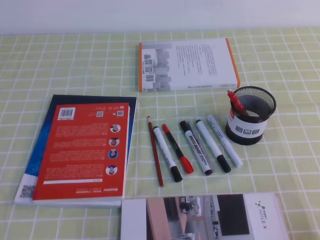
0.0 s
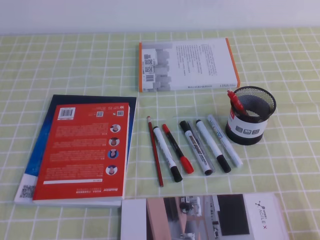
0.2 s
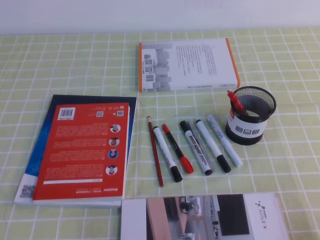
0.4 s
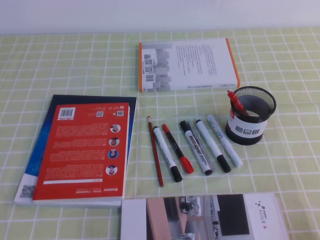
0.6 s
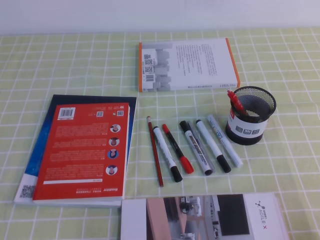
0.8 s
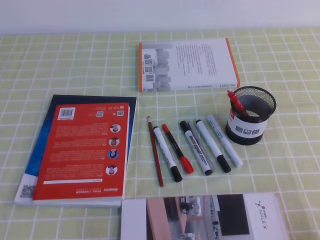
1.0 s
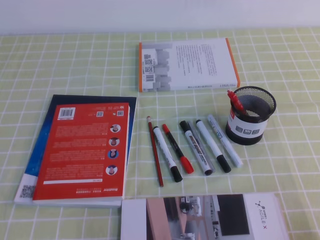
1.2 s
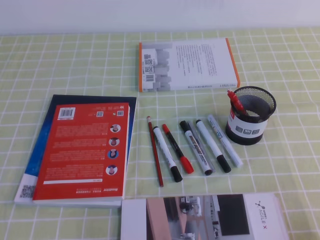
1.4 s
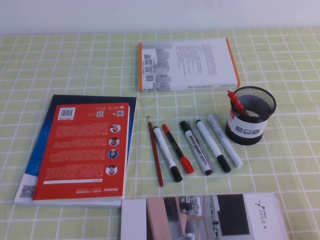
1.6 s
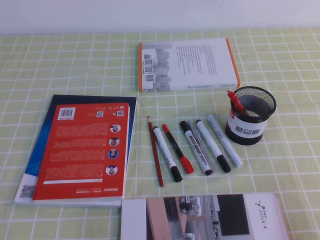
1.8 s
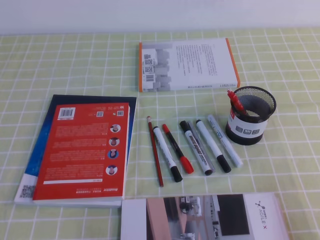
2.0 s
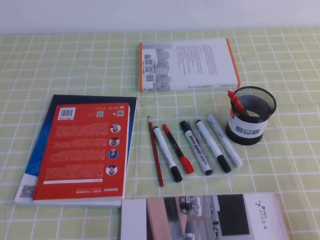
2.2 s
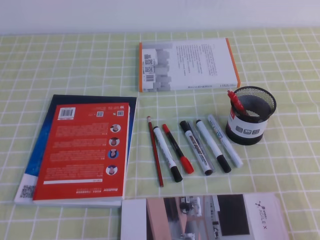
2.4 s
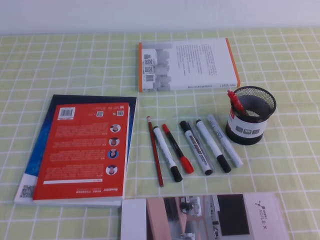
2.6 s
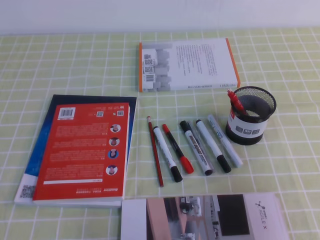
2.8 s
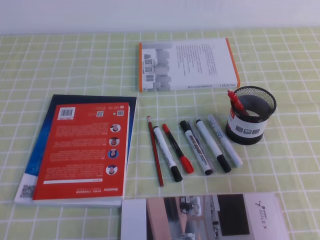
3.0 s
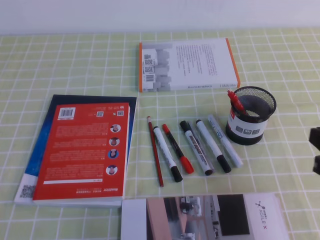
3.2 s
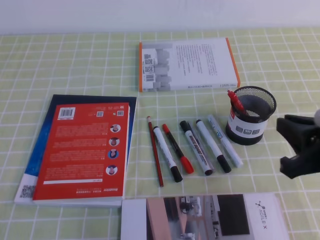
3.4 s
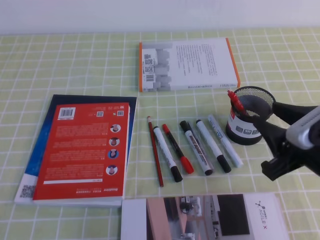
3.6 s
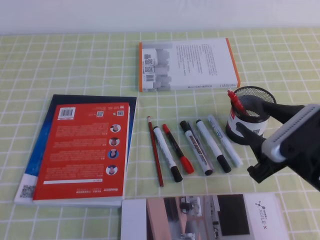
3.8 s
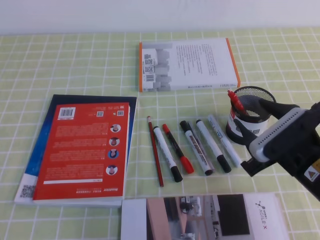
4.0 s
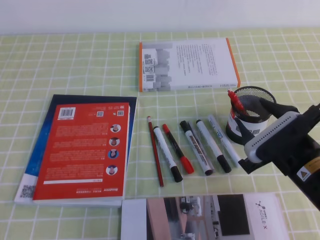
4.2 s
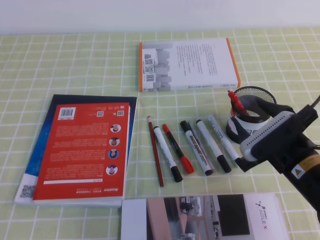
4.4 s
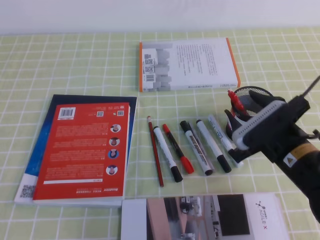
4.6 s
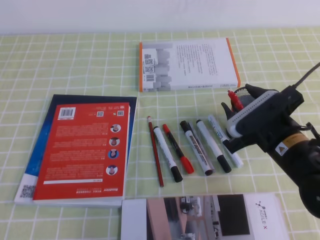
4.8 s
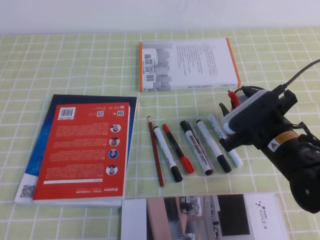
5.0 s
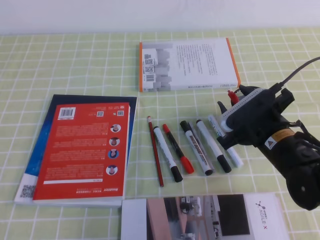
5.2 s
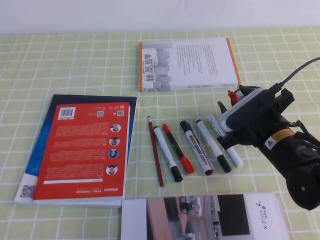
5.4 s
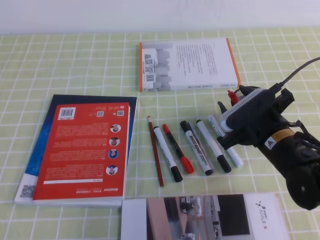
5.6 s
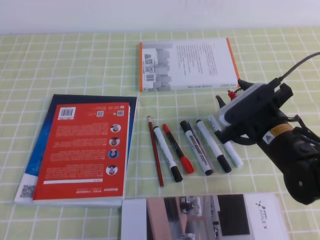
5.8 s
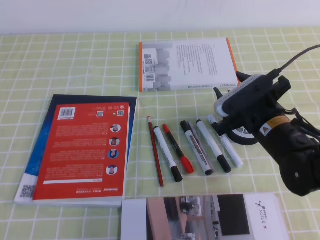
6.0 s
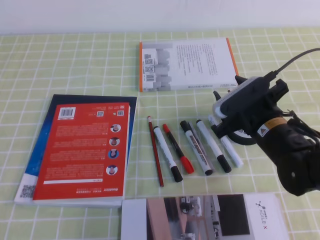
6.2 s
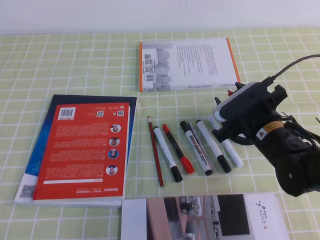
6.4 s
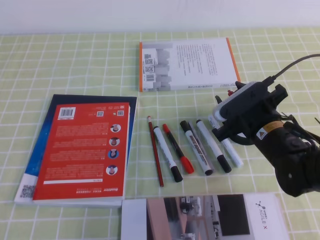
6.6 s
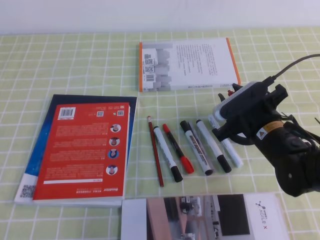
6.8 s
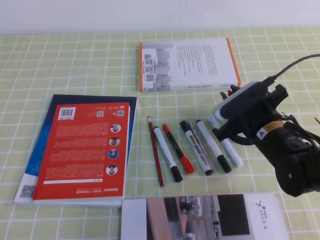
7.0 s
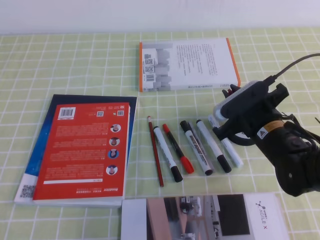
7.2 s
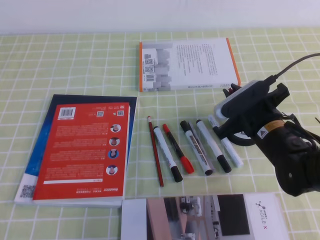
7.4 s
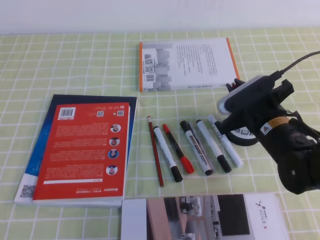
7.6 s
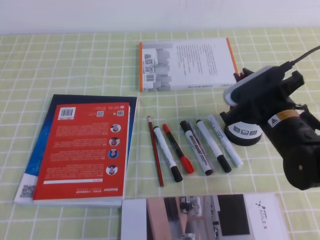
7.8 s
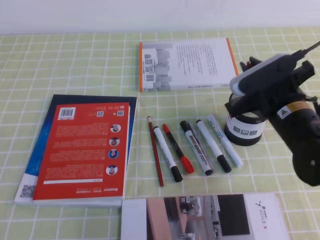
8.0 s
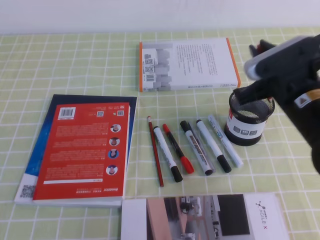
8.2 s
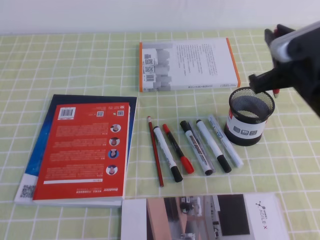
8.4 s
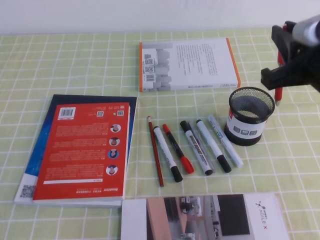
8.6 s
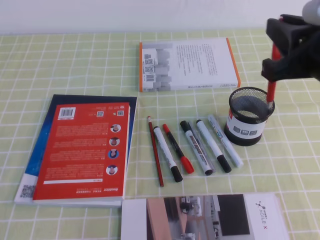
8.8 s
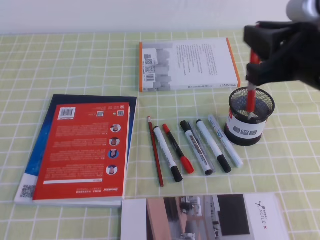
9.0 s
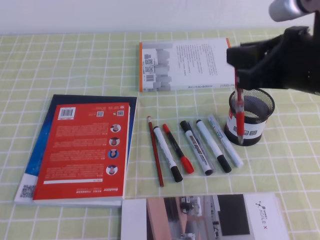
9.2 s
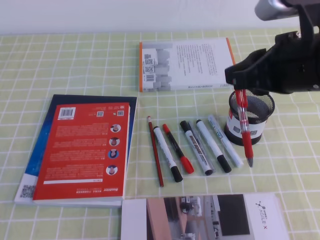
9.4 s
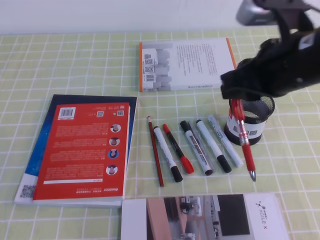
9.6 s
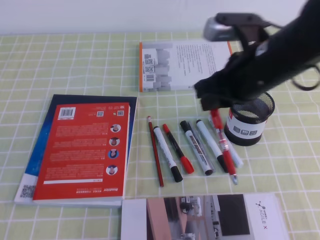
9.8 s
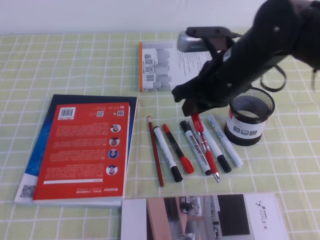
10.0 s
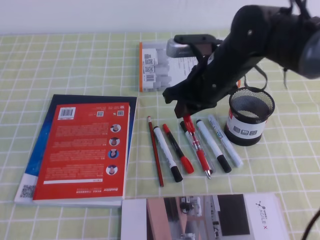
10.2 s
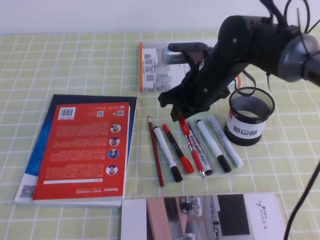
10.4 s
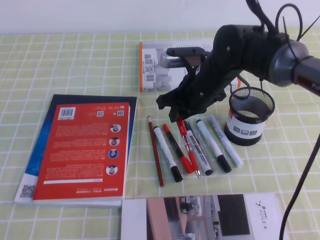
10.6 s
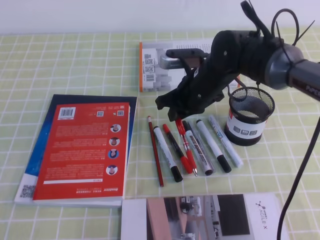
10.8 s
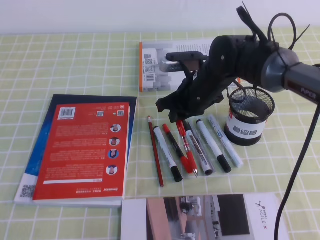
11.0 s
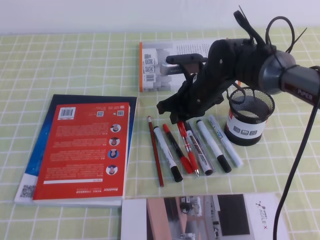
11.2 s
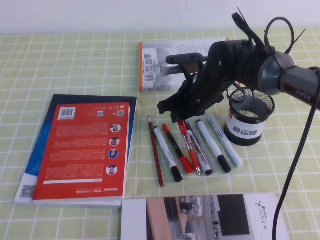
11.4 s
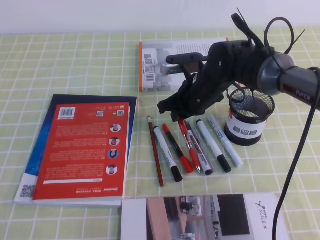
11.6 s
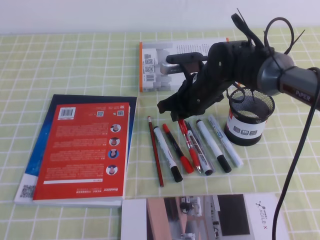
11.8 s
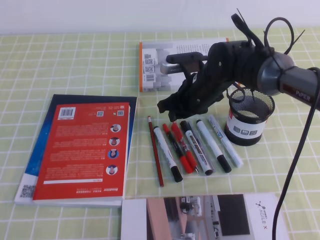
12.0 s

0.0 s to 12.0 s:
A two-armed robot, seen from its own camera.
1.6 to 3.0 s: The right gripper moves upward and forward, roughly 15 cm.
3.0 to 4.4 s: The right gripper heads forward, to the left and downward, covering approximately 15 cm, and opens.
4.4 to 6.0 s: The right gripper is displaced forward by approximately 5 cm.
6.0 to 7.6 s: The right gripper closes its fingers.
7.6 to 9.0 s: The right gripper heads upward and backward, covering about 20 cm.
9.0 to 10.4 s: The right gripper shifts about 20 cm forward, downward and to the left.
10.4 to 12.0 s: The right gripper travels downward by some 5 cm.

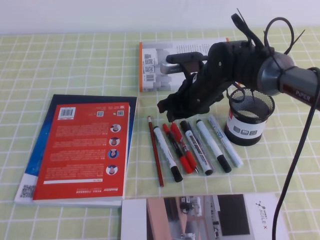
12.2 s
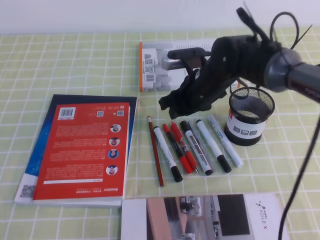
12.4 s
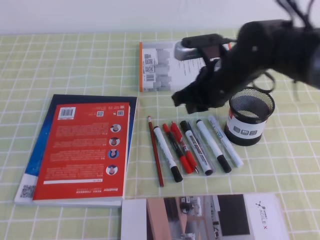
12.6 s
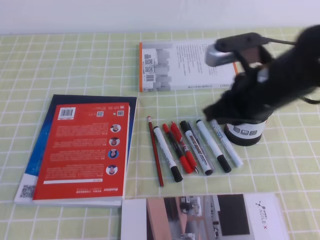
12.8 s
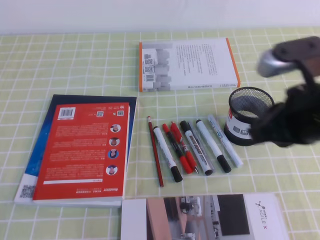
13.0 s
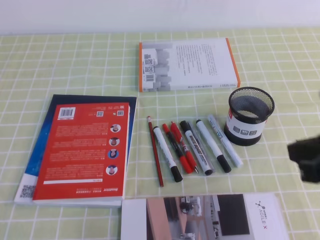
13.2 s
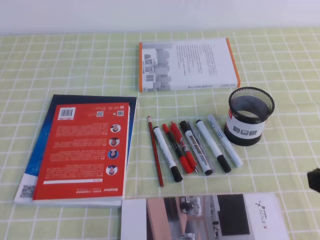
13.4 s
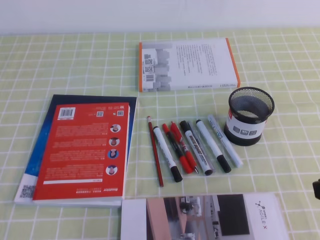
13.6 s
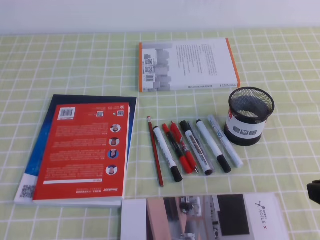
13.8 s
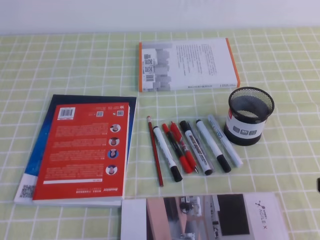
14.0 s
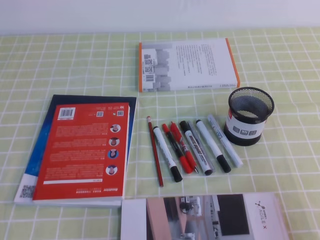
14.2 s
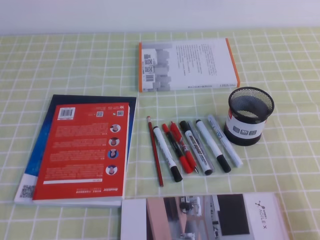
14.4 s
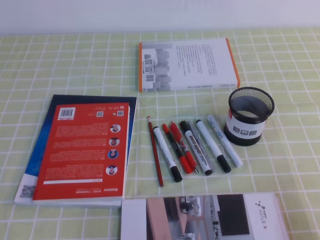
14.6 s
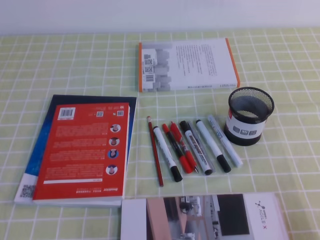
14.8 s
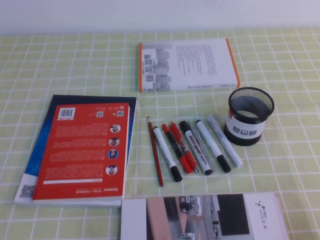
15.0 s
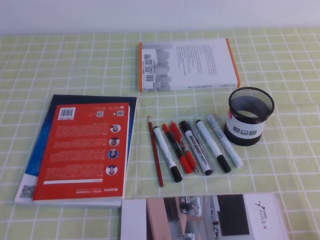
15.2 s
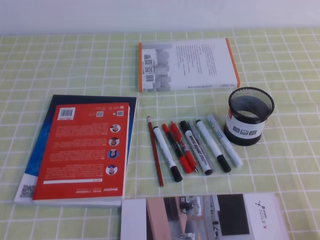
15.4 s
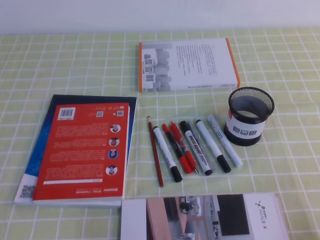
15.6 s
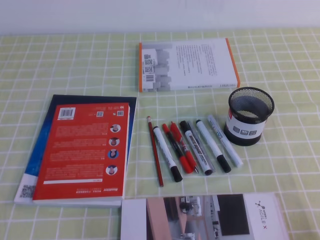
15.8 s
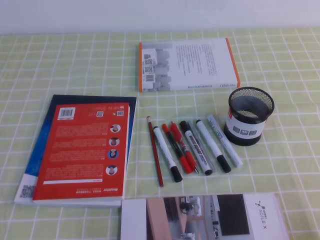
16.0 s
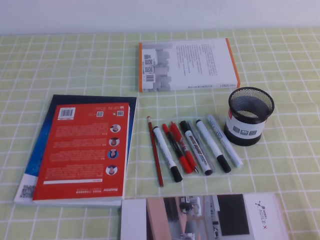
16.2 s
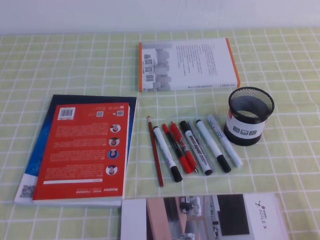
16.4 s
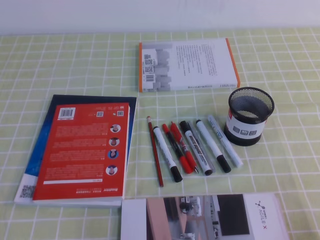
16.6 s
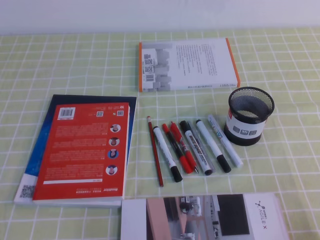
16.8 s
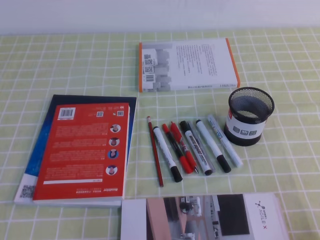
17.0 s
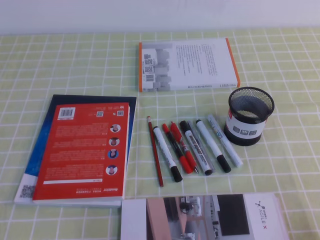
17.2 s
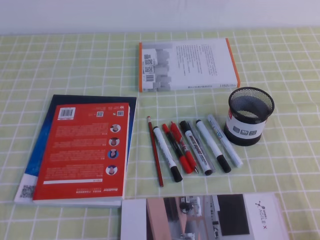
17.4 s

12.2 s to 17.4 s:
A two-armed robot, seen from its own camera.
Step, 12.2 to 17.4 s: Pick up the pen from the pen holder.
12.2 to 14.0 s: The right gripper shifts some 35 cm backward and to the right, and closes its fingers.
14.0 to 15.6 s: The right gripper is displaced downward, backward and to the right by about 10 cm.
15.6 to 17.4 s: The two grippers keep their place.

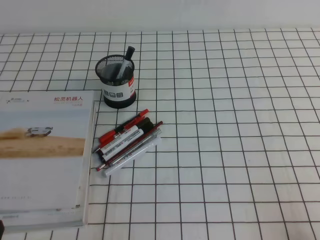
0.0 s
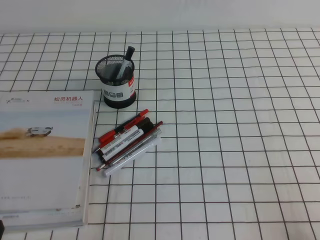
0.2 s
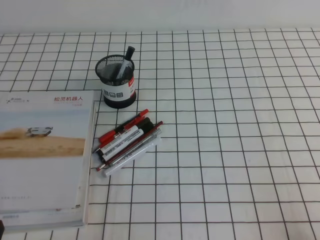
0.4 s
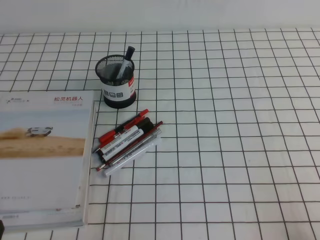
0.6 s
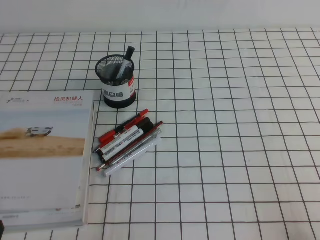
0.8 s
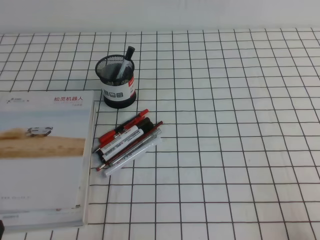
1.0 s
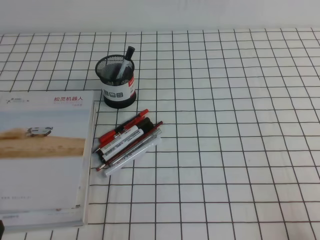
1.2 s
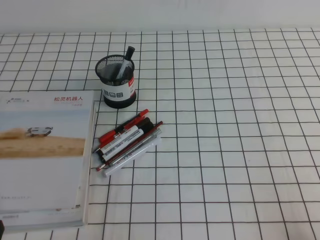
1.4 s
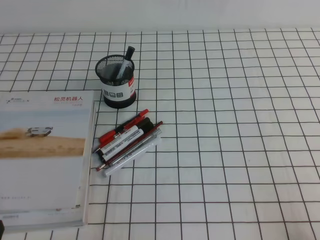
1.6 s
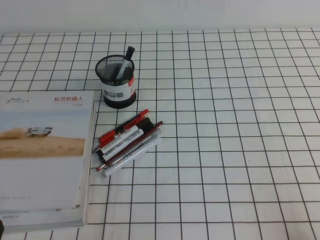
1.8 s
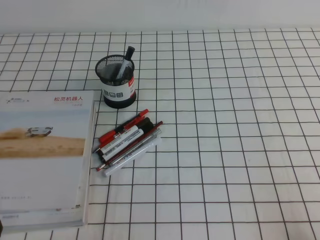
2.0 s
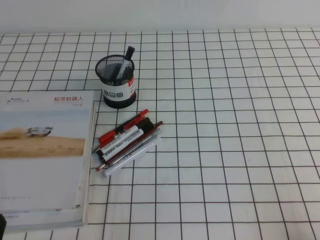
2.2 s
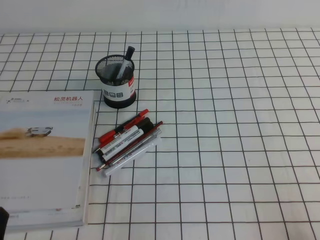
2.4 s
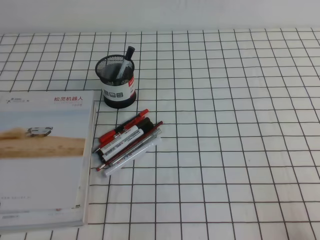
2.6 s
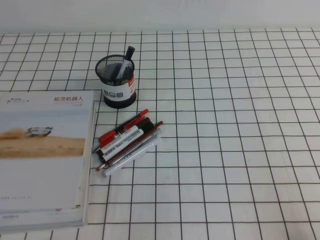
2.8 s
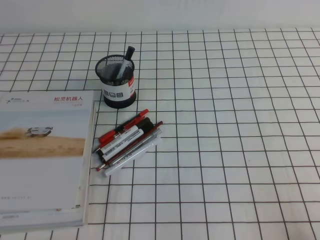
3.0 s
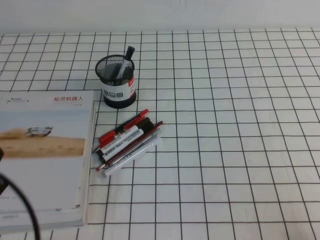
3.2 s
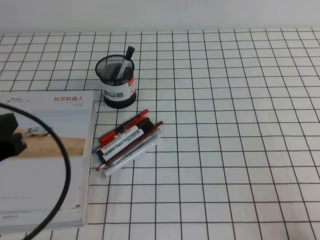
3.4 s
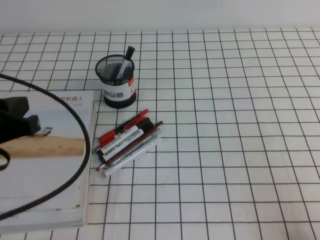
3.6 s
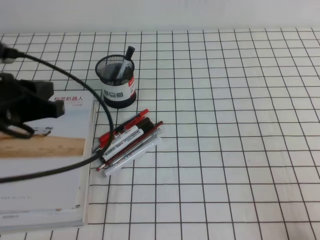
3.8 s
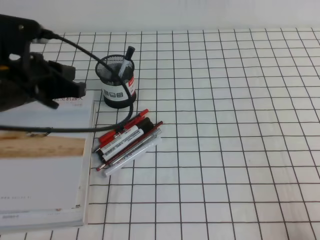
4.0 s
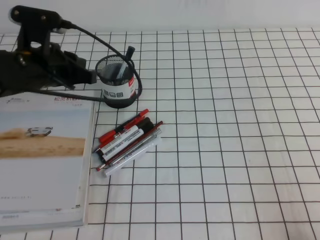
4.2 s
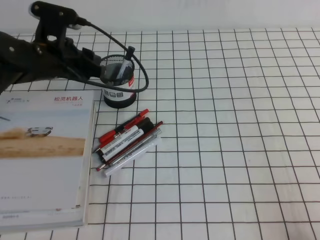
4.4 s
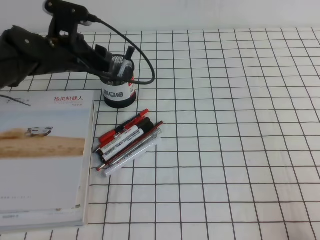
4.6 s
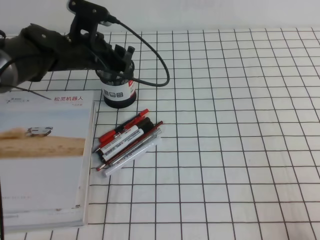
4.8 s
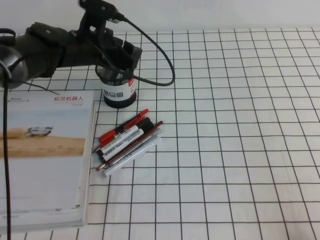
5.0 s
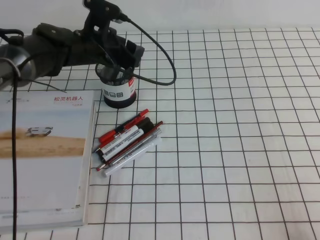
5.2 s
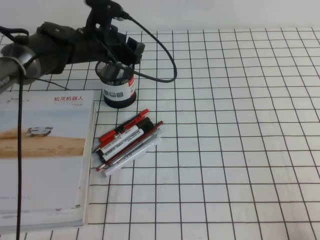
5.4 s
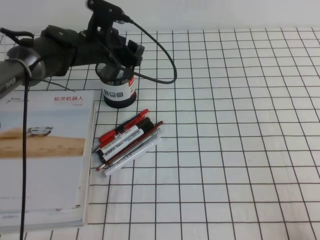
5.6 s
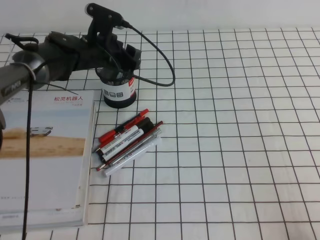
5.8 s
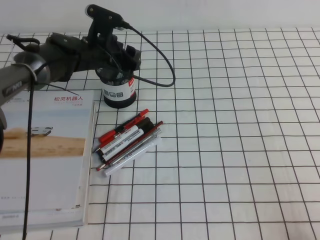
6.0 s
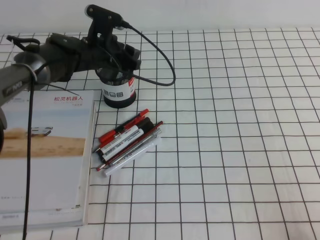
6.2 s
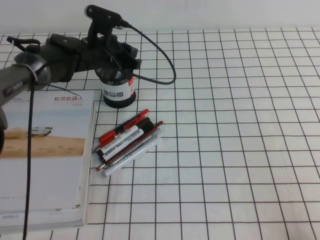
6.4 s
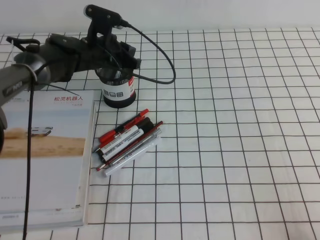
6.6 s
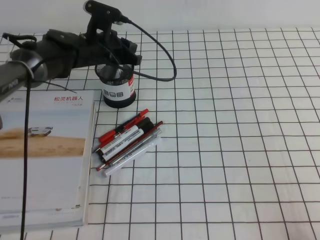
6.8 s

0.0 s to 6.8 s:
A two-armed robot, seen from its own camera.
0.0 to 1.4 s: Neither gripper changes place.
2.8 to 4.0 s: The left gripper moves forward and upward, roughly 25 cm.
4.0 to 5.4 s: The left gripper shifts approximately 20 cm forward and to the right, and opens its fingers.
5.4 to 6.8 s: The left gripper closes its fingers.
